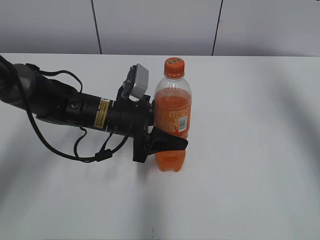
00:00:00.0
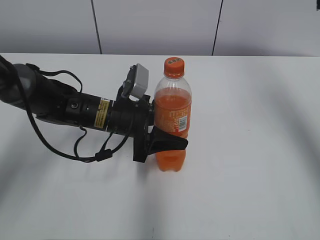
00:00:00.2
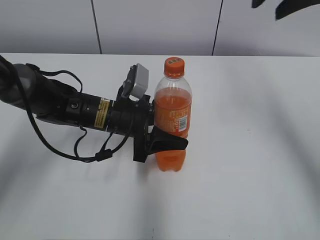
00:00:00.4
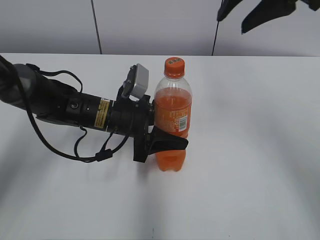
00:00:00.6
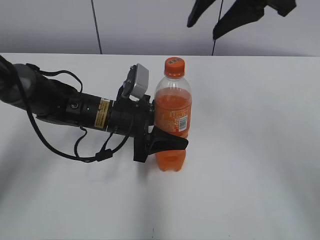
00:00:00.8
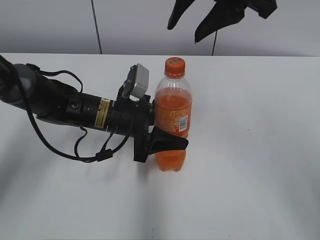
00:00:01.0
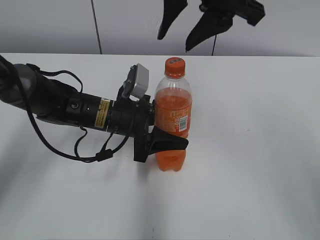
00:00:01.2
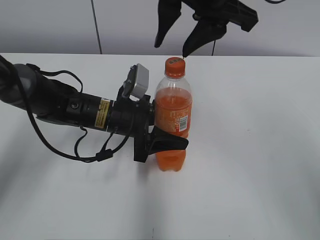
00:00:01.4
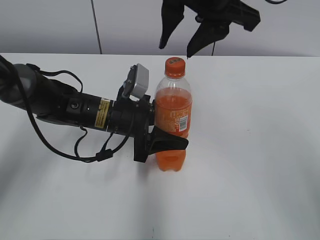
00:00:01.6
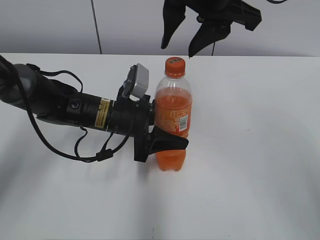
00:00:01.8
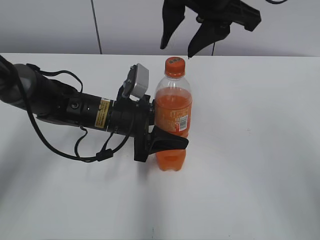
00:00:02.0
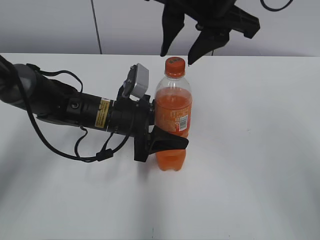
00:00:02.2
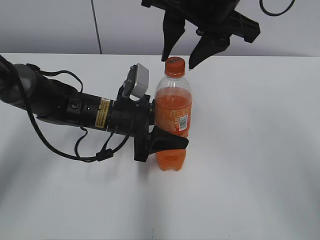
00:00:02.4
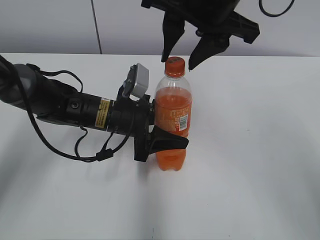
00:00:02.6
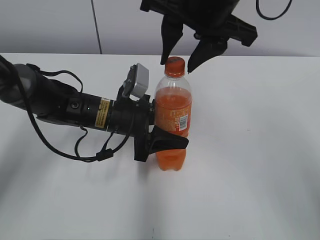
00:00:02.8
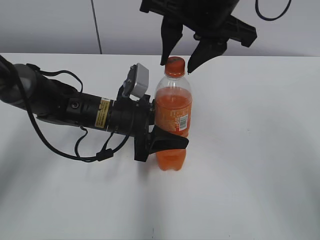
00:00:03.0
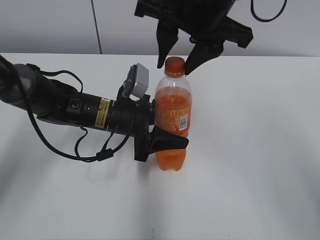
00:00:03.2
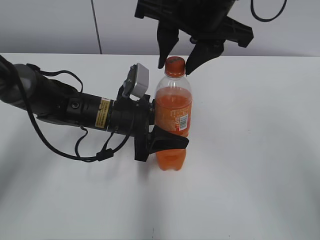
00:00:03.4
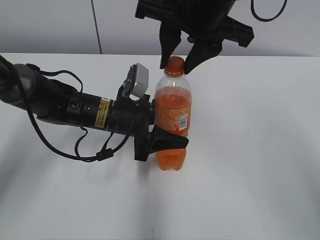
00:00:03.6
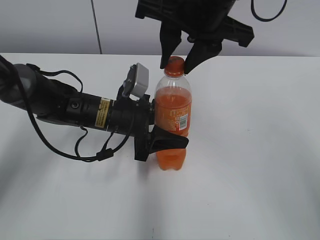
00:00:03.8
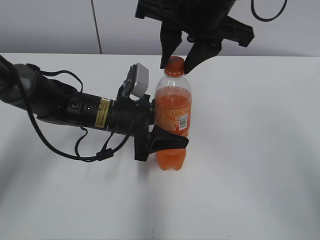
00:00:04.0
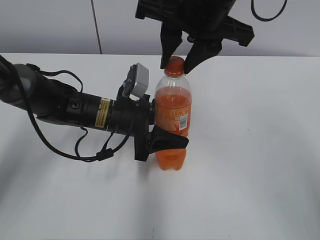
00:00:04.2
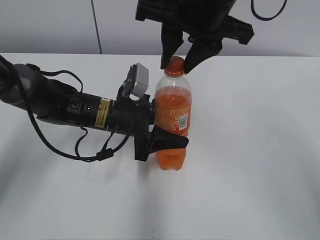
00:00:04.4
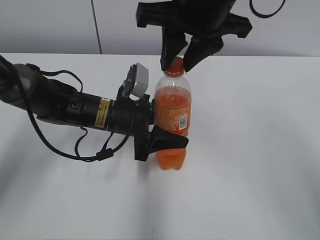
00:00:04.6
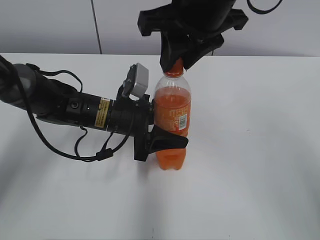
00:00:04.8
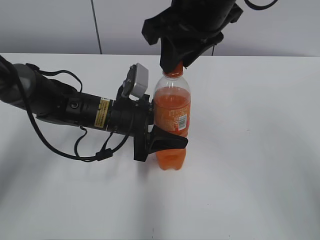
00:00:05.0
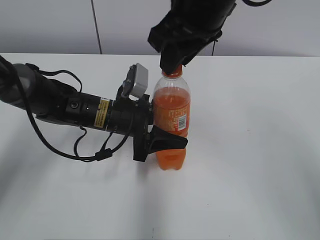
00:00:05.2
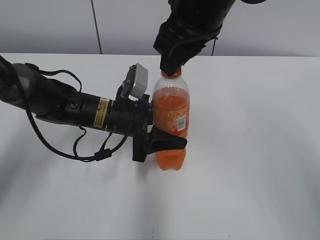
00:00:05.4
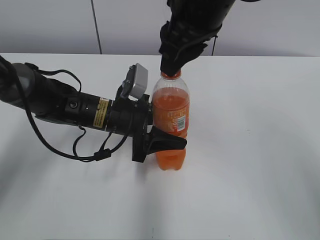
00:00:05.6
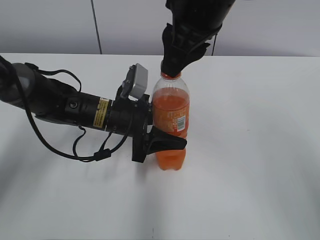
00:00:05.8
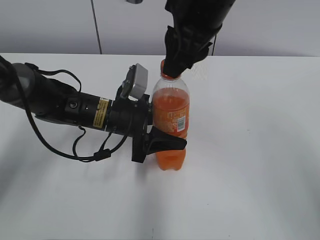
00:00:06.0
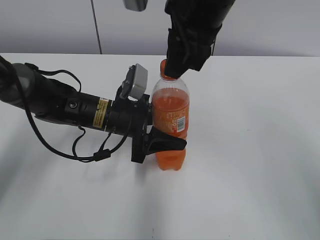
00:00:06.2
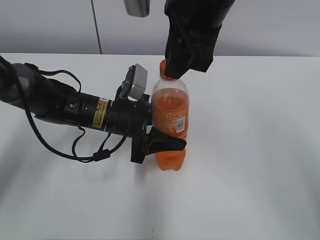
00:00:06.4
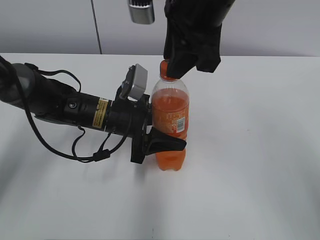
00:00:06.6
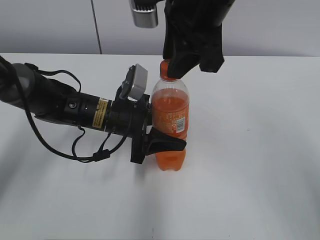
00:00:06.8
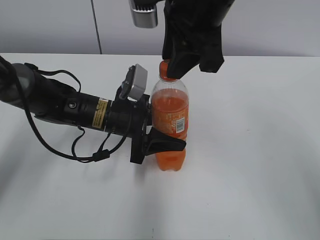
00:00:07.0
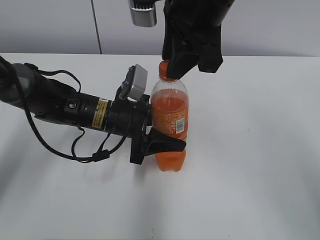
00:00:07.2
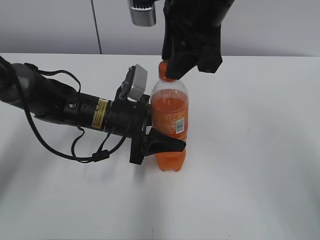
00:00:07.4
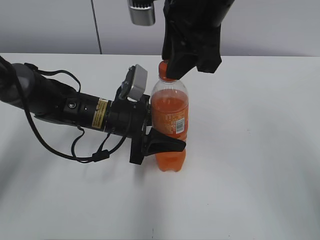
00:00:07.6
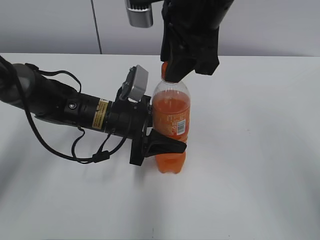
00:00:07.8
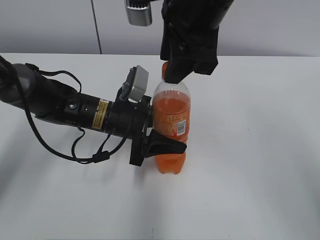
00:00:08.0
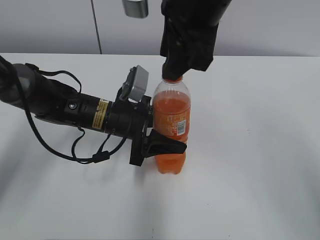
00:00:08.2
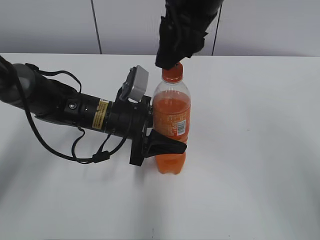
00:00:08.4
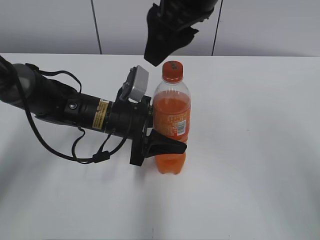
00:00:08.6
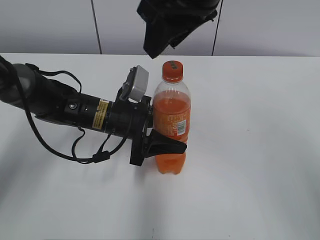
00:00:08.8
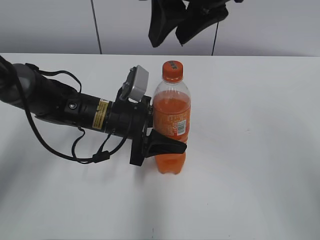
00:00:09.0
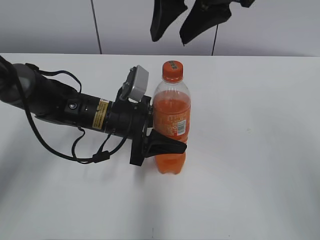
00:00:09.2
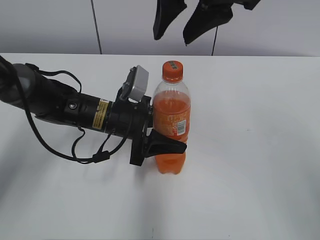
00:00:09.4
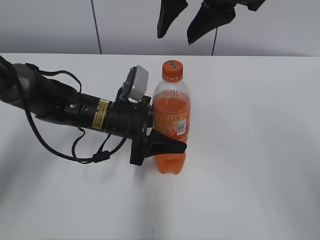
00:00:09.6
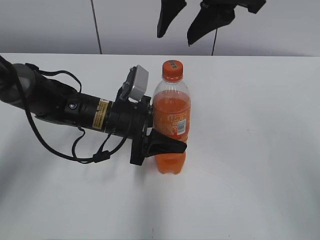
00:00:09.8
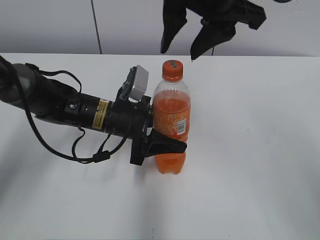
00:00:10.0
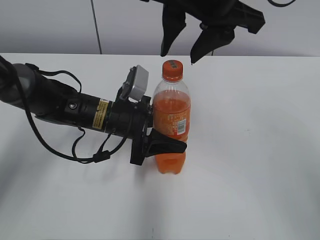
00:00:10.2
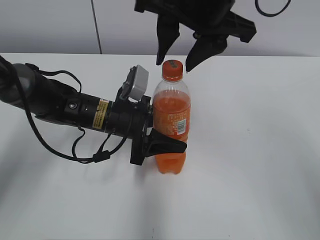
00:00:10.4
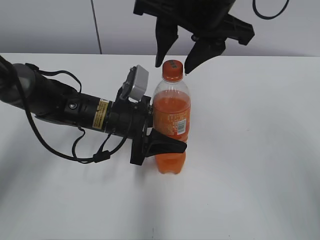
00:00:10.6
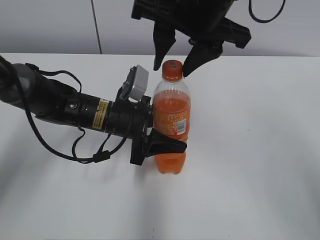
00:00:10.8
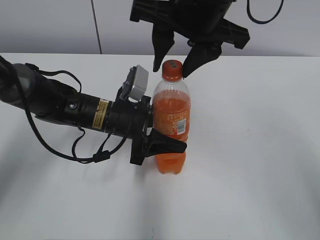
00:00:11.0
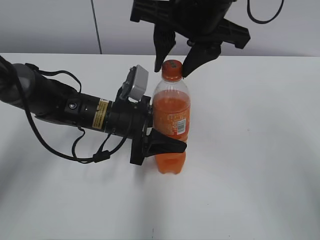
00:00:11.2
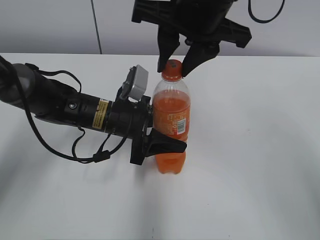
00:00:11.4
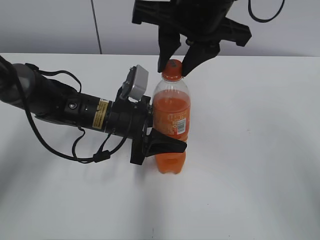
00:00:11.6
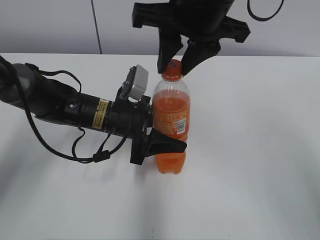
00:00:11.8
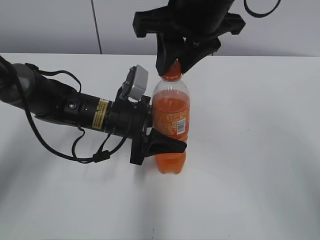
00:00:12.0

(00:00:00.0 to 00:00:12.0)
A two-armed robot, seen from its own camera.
00:00:00.0 - 00:00:01.6: The right gripper heads to the left, covering roughly 20 cm.
00:00:01.6 - 00:00:03.0: There are only small adjustments of the grippers.
00:00:03.0 - 00:00:04.4: The right gripper closes.
00:00:07.6 - 00:00:09.0: The right gripper opens.
00:00:10.4 - 00:00:12.0: The right gripper closes up.

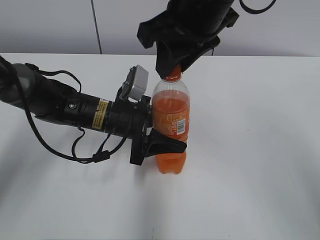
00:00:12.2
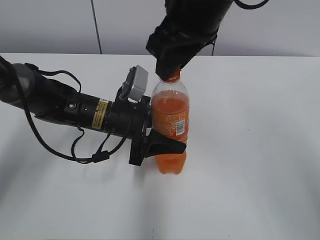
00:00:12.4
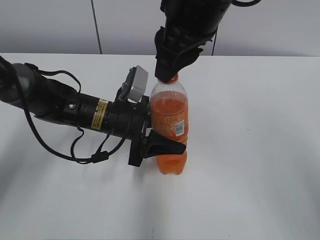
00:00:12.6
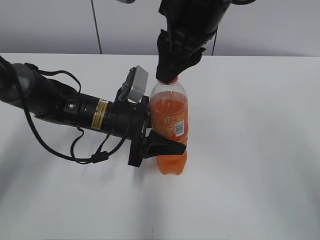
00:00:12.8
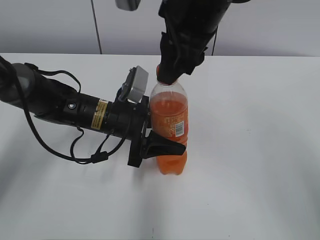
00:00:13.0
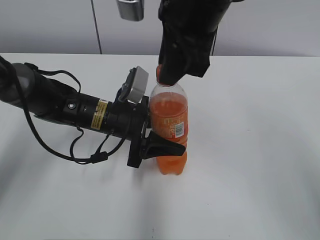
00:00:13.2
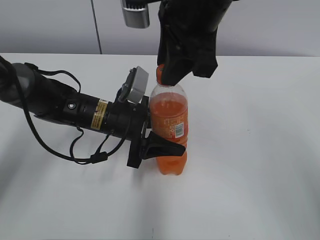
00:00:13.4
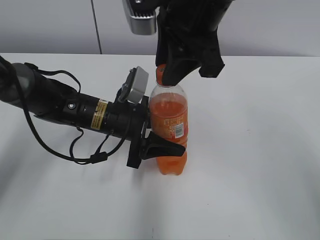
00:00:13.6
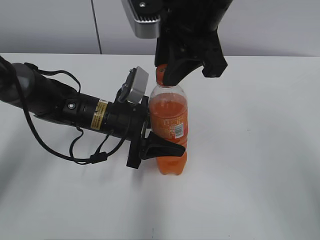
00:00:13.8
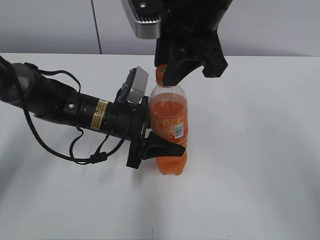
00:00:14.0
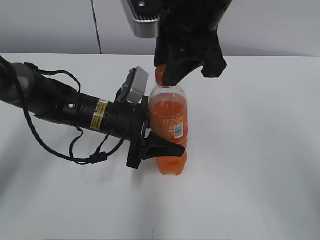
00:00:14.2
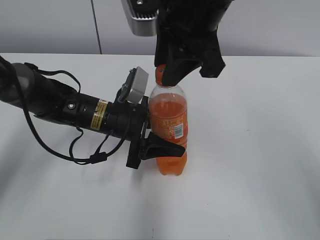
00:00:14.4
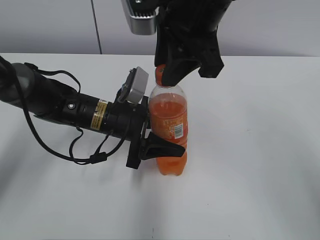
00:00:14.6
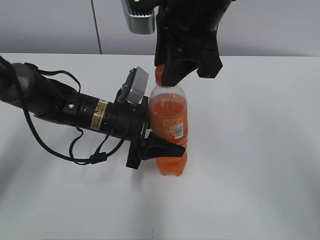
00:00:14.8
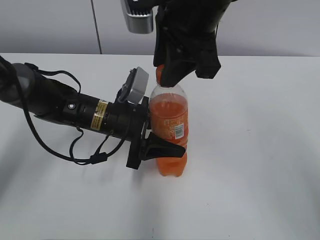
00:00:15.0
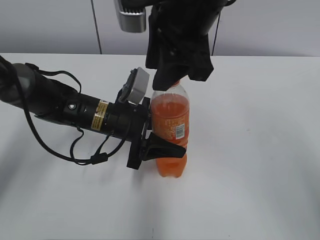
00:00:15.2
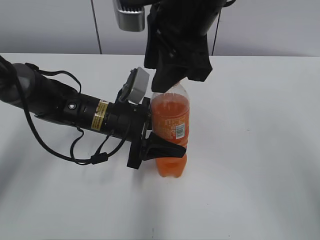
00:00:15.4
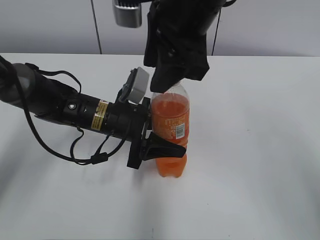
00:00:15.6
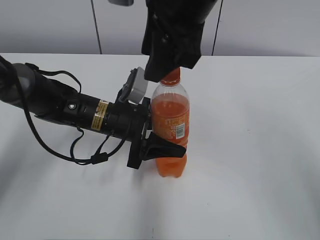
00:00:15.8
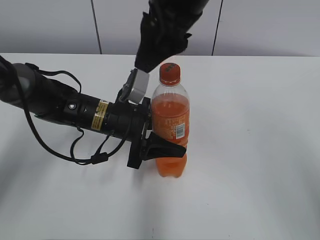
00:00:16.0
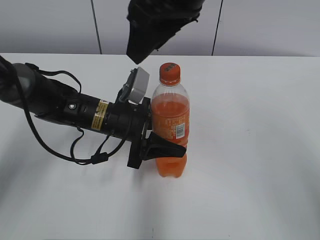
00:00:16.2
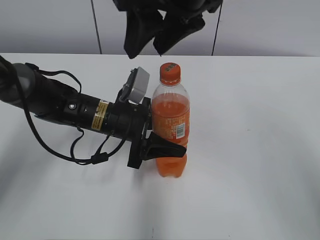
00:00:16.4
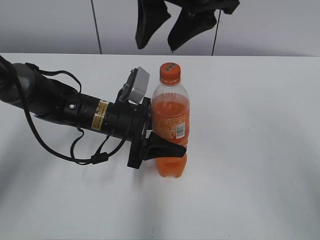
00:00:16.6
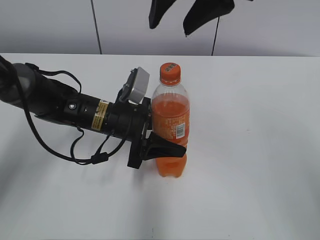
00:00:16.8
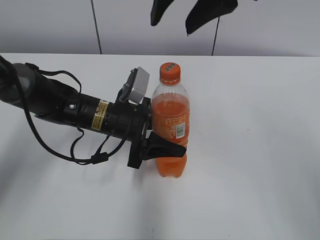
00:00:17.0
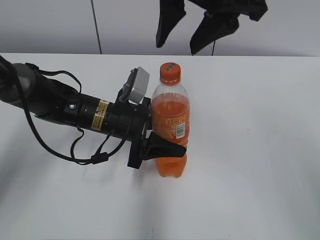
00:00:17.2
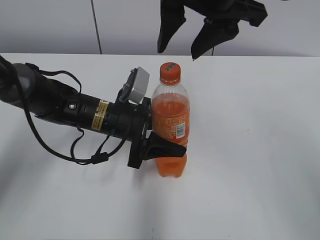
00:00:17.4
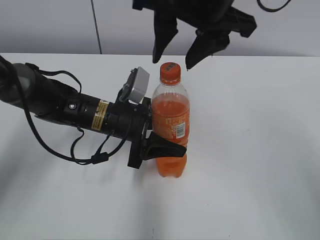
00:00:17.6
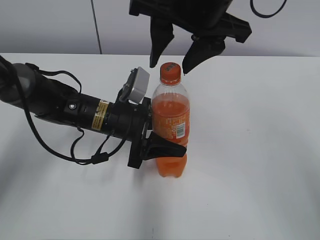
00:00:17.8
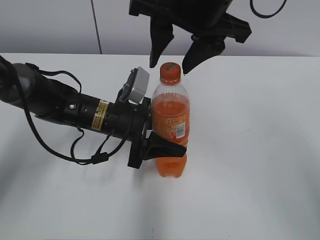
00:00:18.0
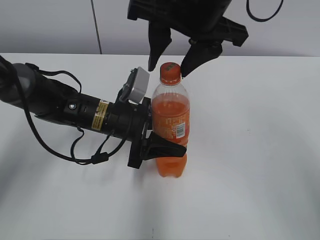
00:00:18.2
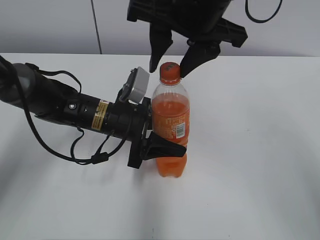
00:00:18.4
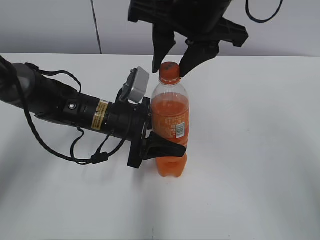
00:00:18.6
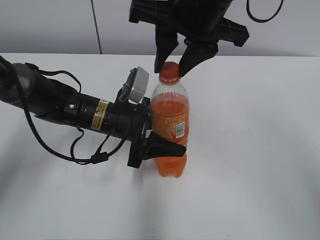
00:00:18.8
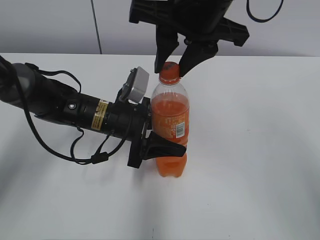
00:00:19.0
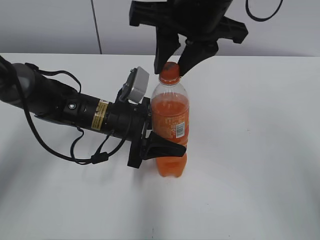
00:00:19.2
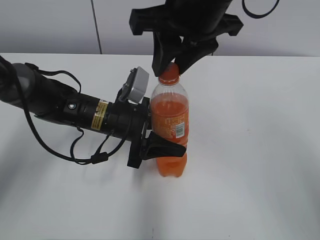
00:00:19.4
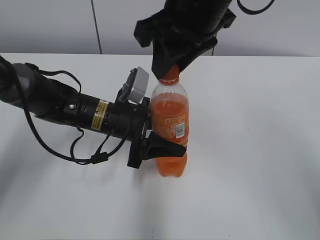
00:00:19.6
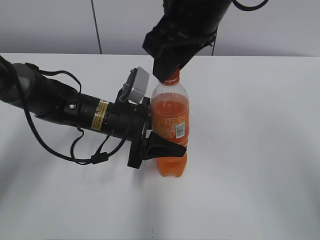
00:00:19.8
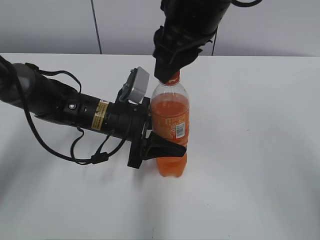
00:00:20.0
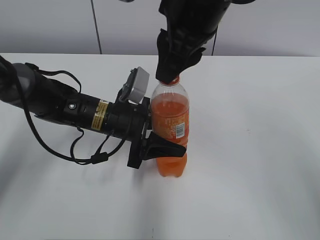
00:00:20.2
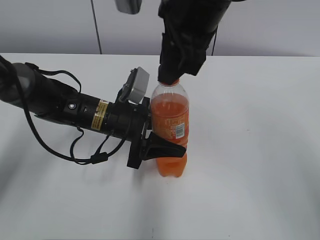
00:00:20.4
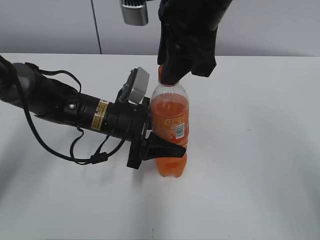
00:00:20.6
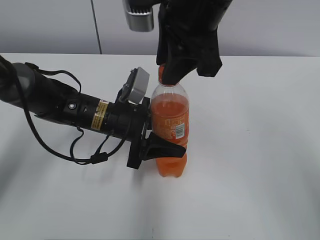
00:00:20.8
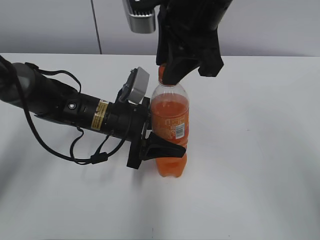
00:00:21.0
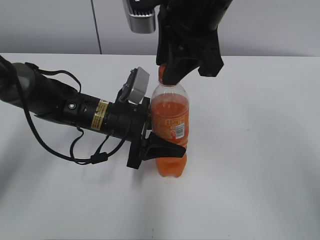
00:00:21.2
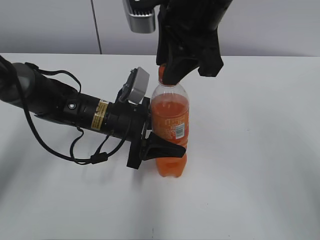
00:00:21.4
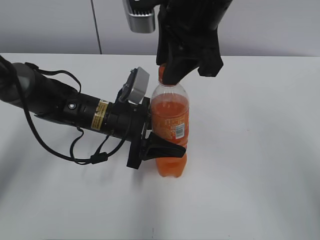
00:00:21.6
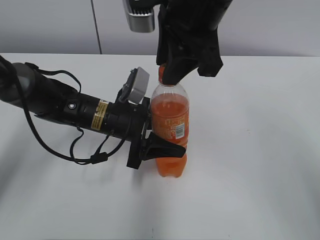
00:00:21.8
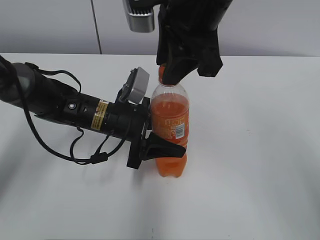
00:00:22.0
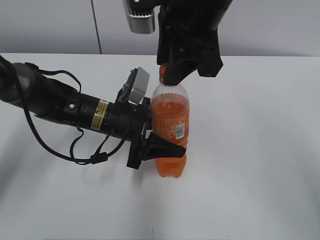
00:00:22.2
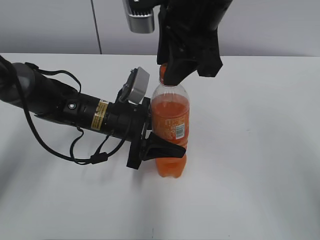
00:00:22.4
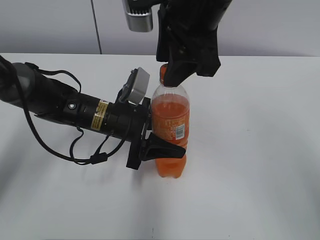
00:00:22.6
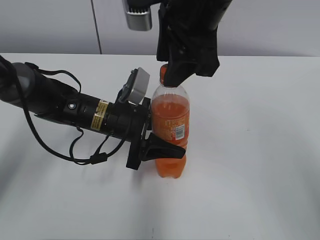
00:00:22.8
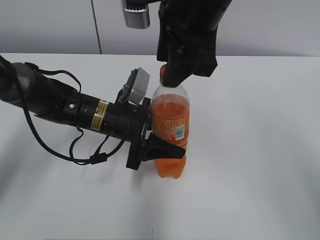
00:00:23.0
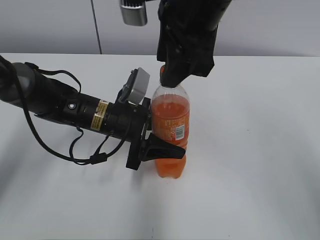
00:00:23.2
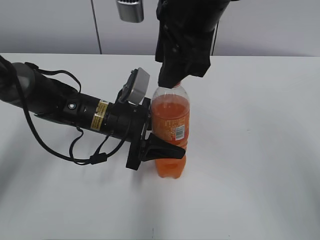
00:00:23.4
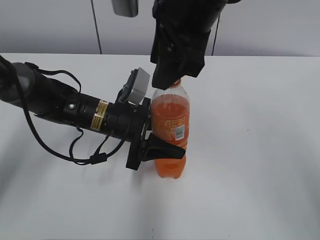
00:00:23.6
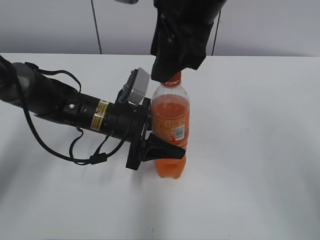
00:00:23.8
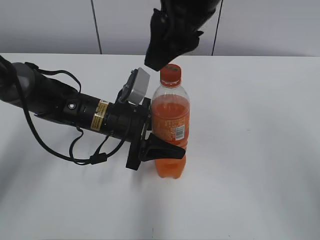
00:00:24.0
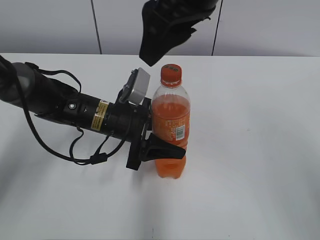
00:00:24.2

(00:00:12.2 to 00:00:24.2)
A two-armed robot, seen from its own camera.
00:00:13.8 - 00:00:15.2: The grippers make only small movements.
00:00:15.2 - 00:00:16.6: The right gripper opens.
00:00:16.6 - 00:00:18.2: The grippers stay close to where they were, moving slightly.
00:00:18.2 - 00:00:19.8: The right gripper closes its fingers.
00:00:21.2 - 00:00:22.6: The right gripper opens up.
